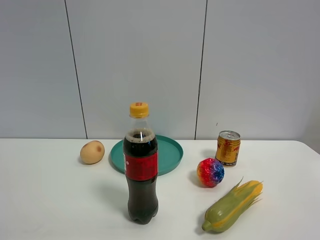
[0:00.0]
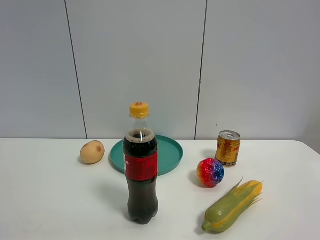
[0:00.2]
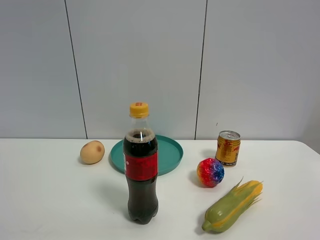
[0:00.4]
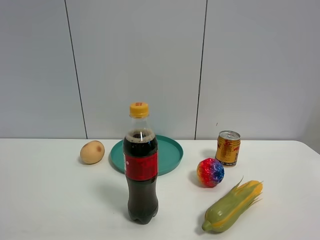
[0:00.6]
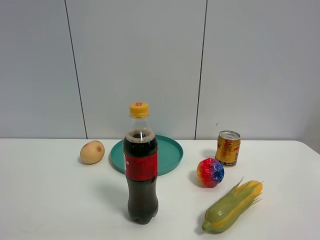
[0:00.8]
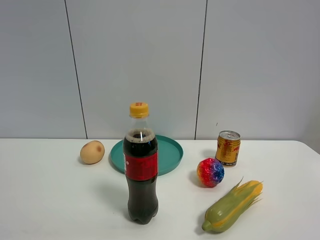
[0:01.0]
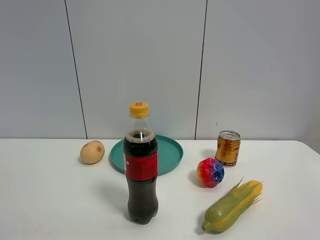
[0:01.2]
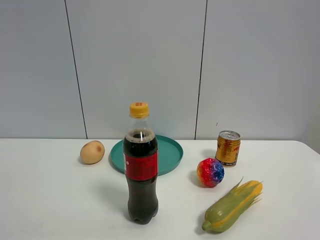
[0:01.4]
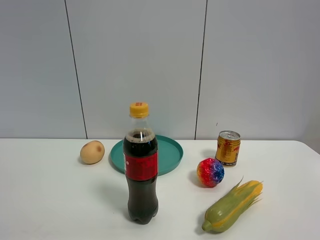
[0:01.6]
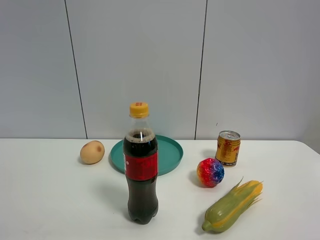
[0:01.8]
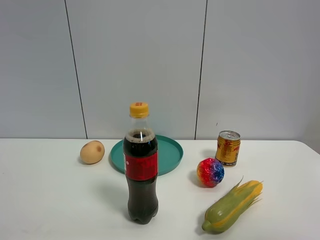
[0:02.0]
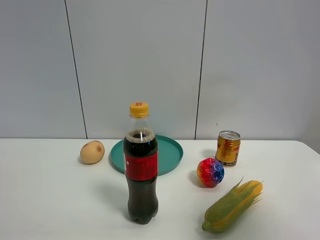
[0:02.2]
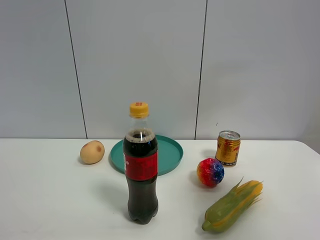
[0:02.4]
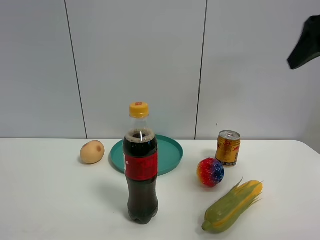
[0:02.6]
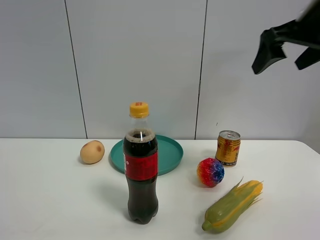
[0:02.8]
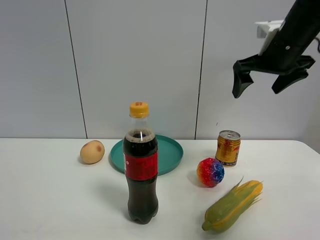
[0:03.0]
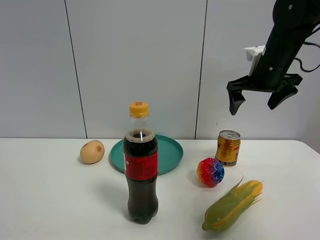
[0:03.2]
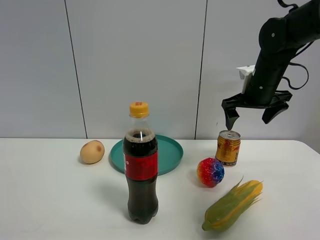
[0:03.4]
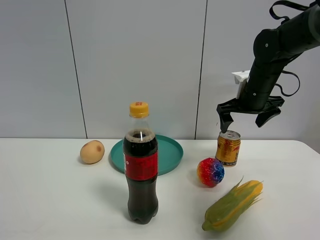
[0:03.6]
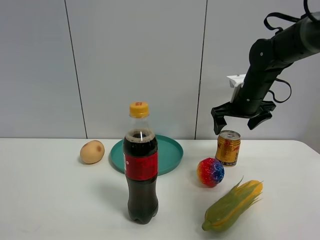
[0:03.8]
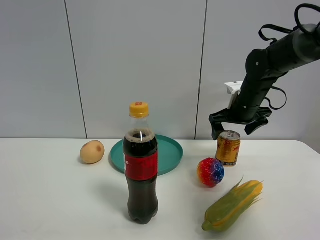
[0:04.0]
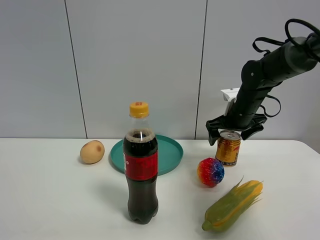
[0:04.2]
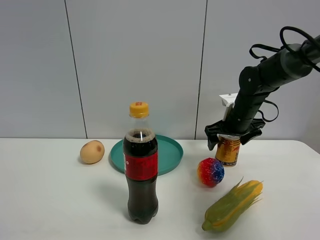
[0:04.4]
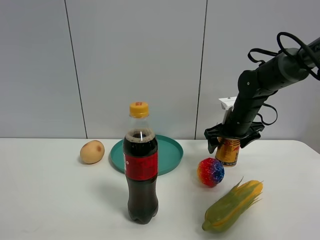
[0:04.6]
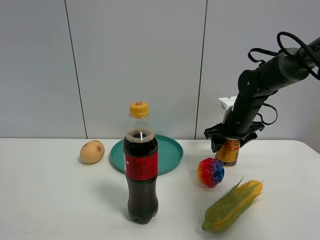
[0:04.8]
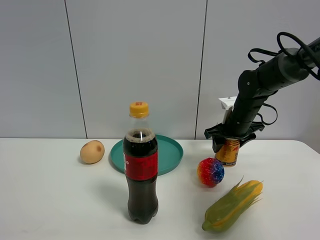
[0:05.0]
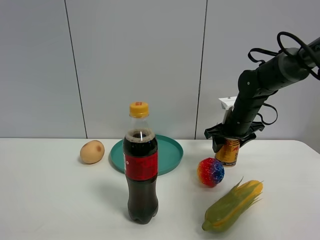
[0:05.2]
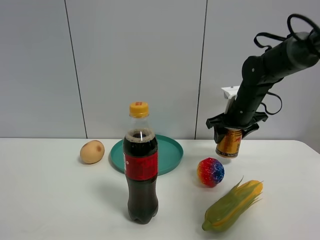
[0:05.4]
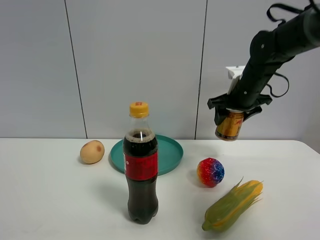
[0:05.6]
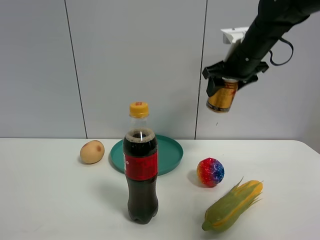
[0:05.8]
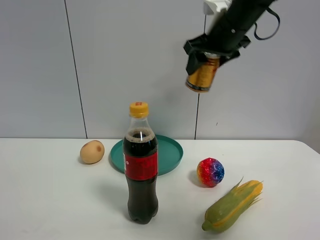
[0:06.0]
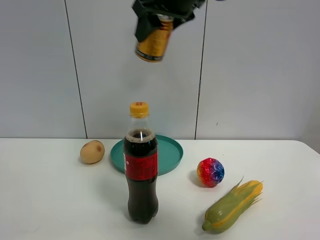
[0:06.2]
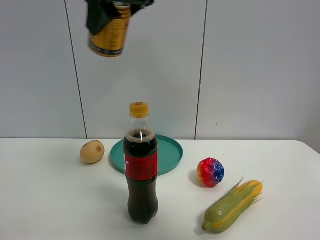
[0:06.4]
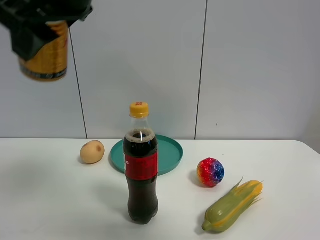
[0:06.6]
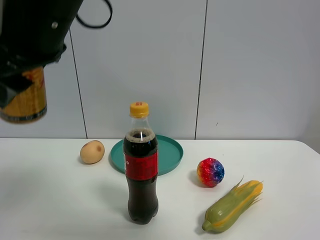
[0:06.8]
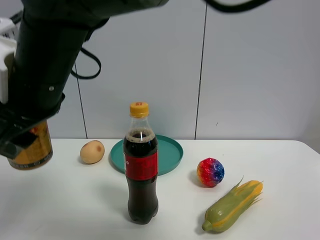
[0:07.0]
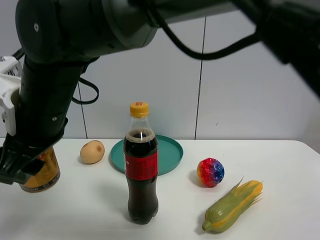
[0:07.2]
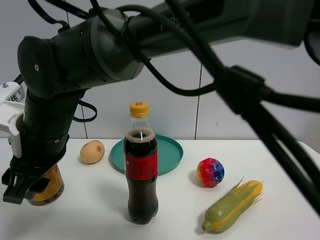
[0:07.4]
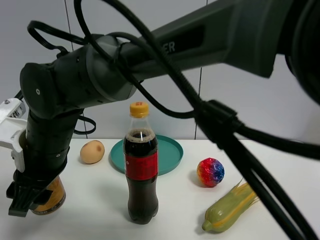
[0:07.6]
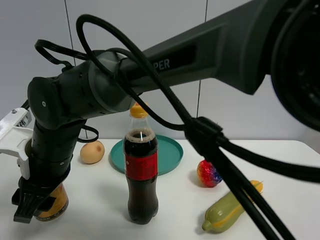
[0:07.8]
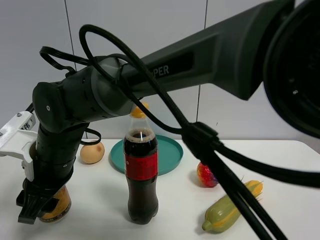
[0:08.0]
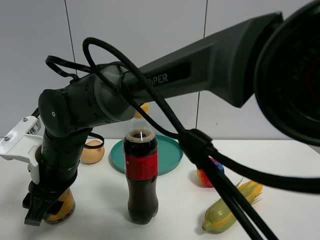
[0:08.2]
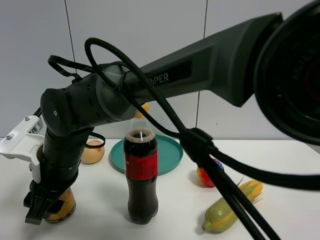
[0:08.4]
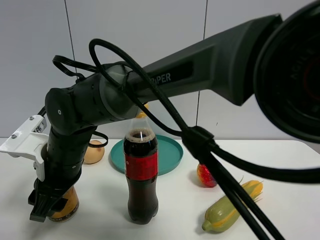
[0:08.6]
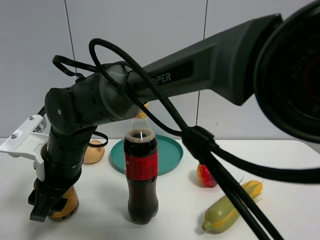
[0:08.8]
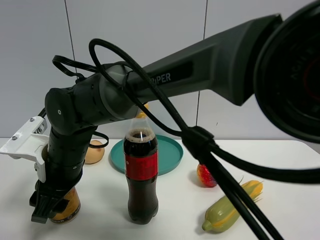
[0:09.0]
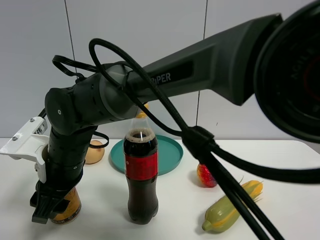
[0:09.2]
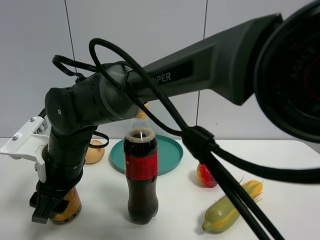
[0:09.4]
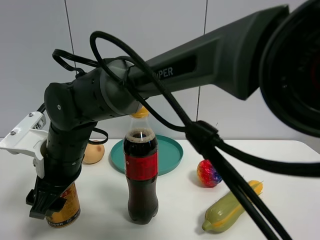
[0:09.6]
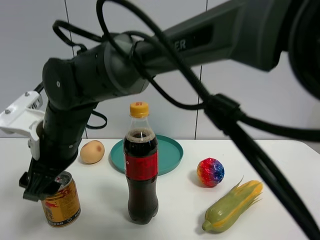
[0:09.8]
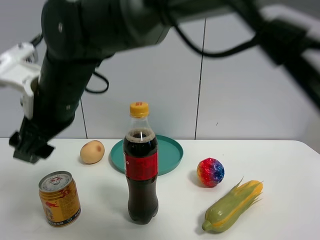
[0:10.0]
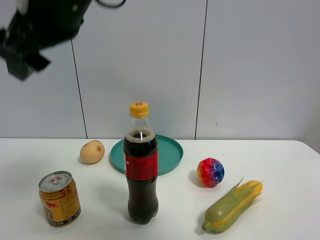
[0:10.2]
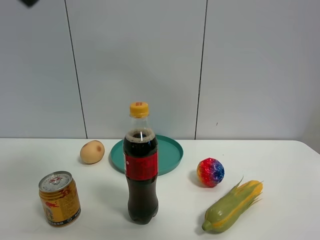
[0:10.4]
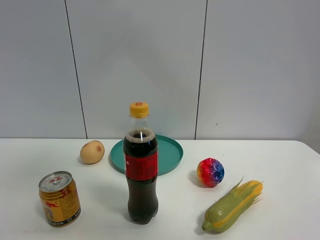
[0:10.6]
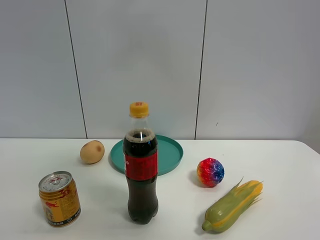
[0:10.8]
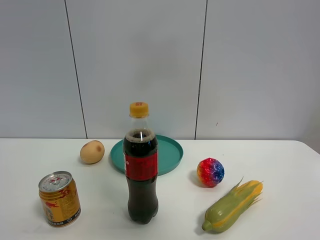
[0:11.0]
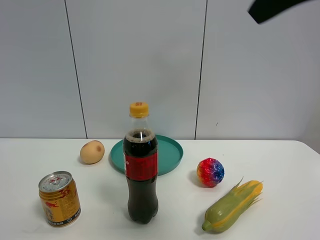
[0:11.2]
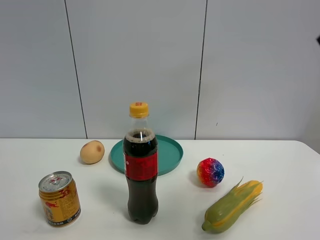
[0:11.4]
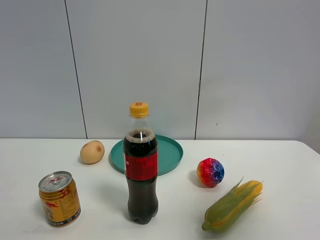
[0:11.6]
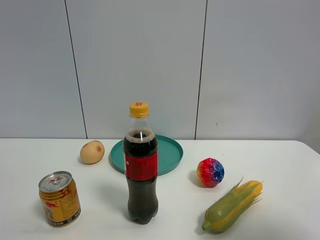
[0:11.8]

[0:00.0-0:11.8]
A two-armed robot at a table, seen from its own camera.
Task of the whole recording: the gripper move the object.
Step, 0:00.0 to 0:04.8: Grasp the red bull with the right gripper.
Step, 0:05.0 to 0:09.6: Place the red bull on the table with the right gripper.
0:00.0 to 0:01.4: Both grippers stay about where they are.
0:01.4 to 0:03.0: The right gripper moves forward, roughly 40 cm.
0:03.0 to 0:04.4: The right gripper heads downward and forward, covering roughly 20 cm.
0:04.4 to 0:06.0: The right gripper heads upward, covering roughly 20 cm, and closes.
0:06.0 to 0:07.4: The right gripper shifts approximately 35 cm to the left, downward and backward.
0:07.4 to 0:08.8: The right gripper shifts approximately 5 cm downward.
0:08.8 to 0:10.4: The right gripper moves upward, about 30 cm, and opens.
0:10.4 to 0:11.8: The right gripper shifts approximately 40 cm to the right and backward.

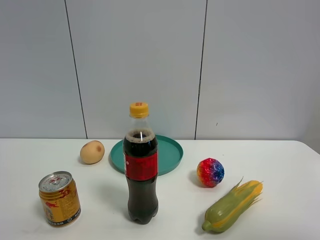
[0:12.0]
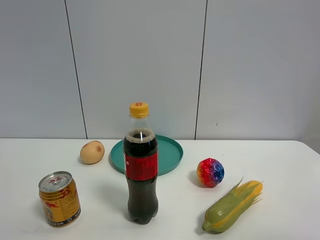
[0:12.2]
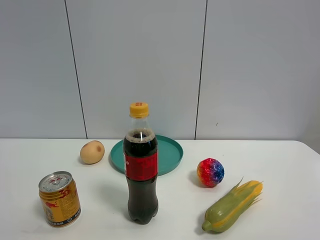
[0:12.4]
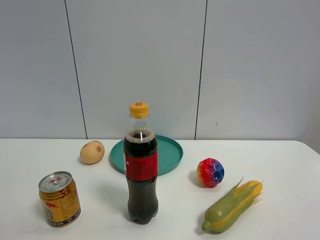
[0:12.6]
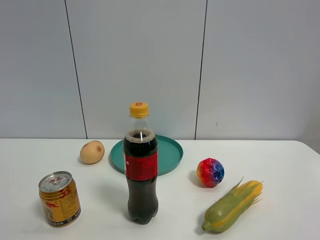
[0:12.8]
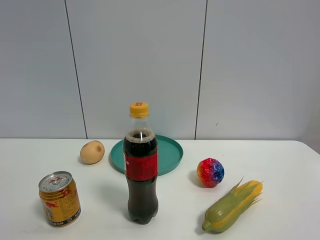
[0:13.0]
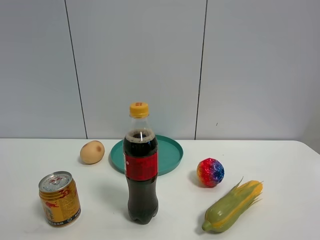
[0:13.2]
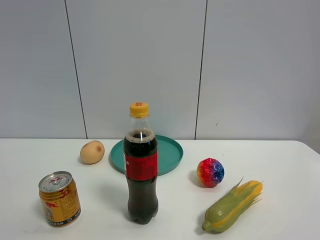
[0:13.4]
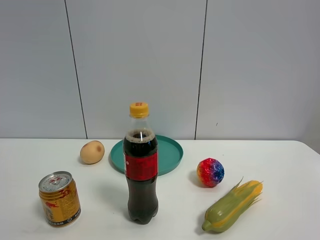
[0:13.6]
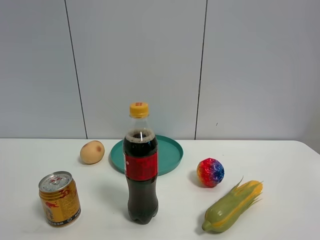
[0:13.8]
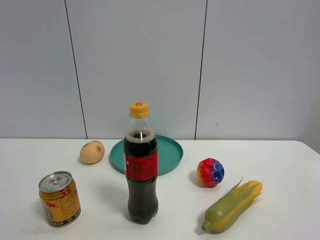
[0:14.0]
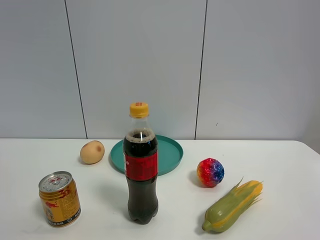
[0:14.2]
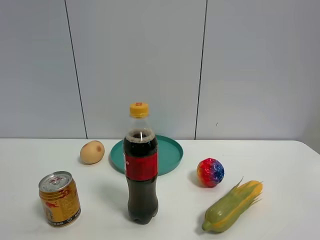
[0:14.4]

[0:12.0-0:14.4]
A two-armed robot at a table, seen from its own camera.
Task of the whole recording: the gripper move the object.
0:12.0 to 0:13.2: The right gripper heads backward, covering approximately 5 cm.
0:13.2 to 0:14.4: Both grippers stay put.

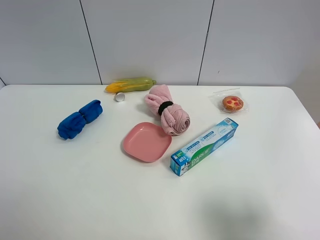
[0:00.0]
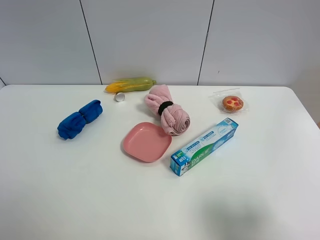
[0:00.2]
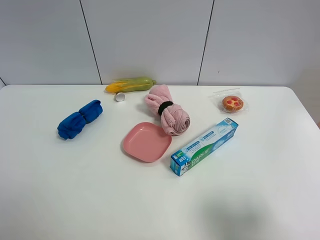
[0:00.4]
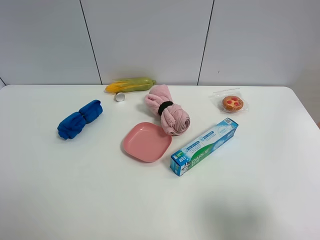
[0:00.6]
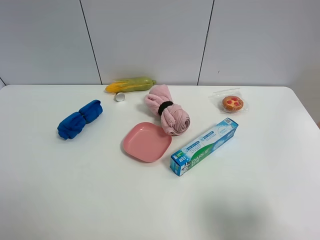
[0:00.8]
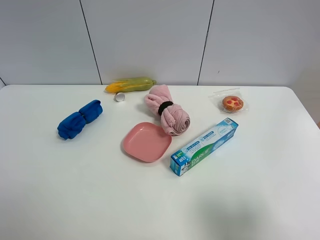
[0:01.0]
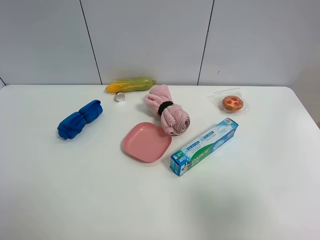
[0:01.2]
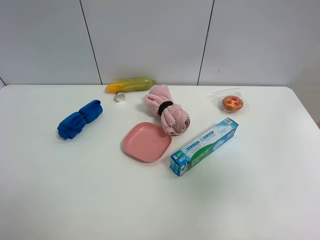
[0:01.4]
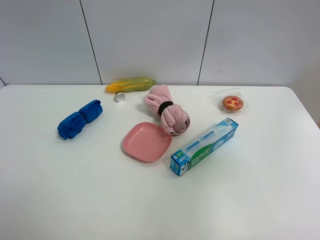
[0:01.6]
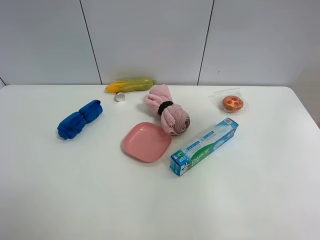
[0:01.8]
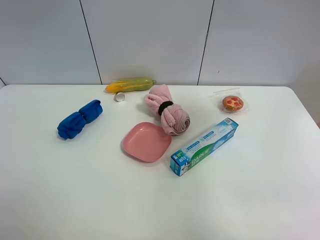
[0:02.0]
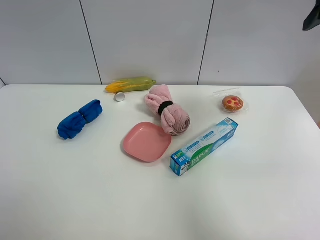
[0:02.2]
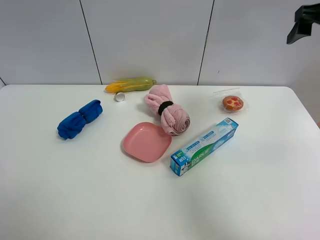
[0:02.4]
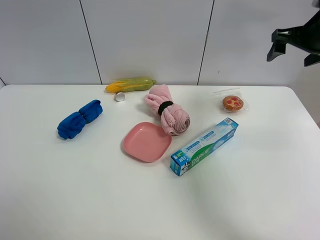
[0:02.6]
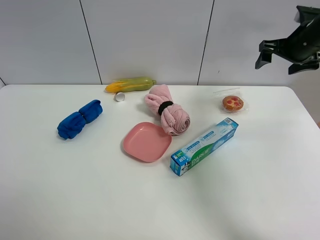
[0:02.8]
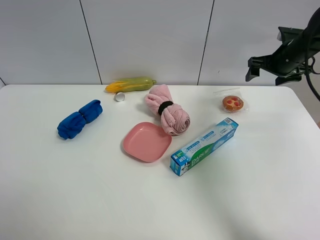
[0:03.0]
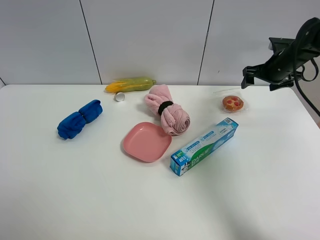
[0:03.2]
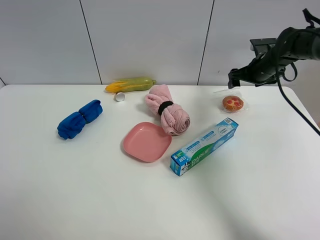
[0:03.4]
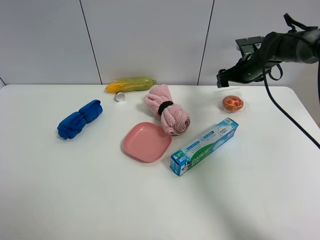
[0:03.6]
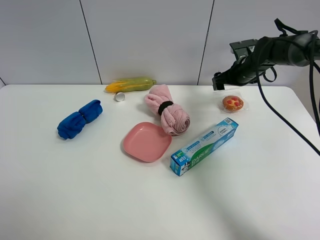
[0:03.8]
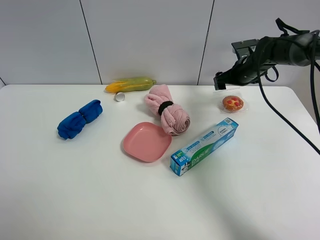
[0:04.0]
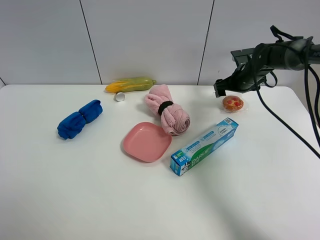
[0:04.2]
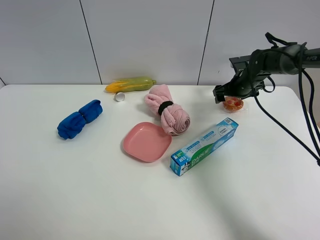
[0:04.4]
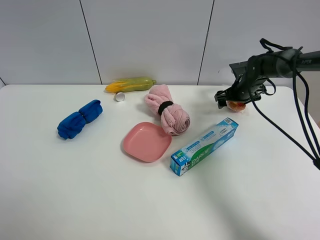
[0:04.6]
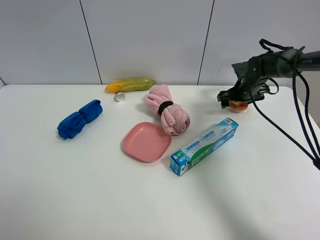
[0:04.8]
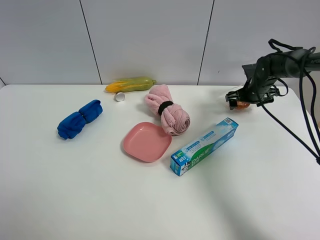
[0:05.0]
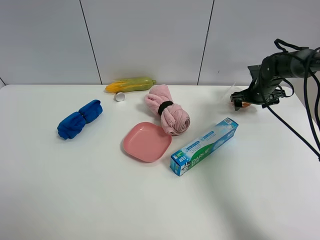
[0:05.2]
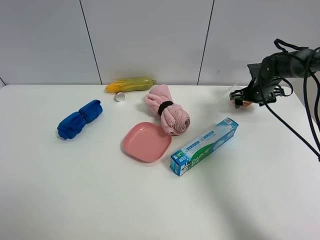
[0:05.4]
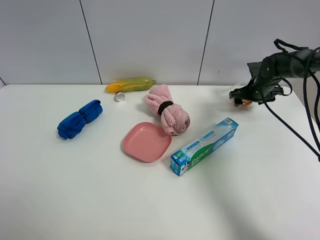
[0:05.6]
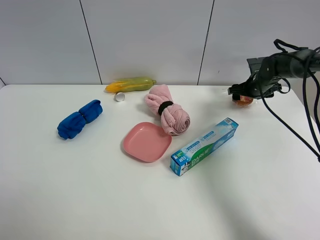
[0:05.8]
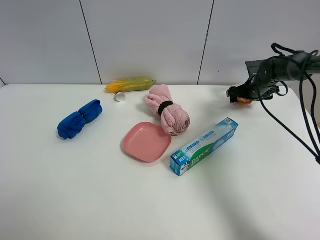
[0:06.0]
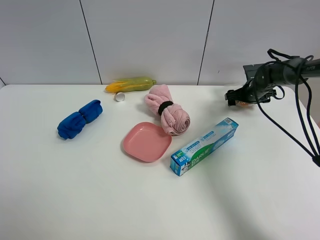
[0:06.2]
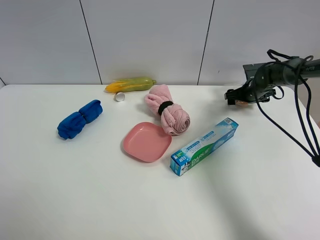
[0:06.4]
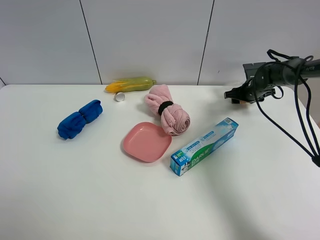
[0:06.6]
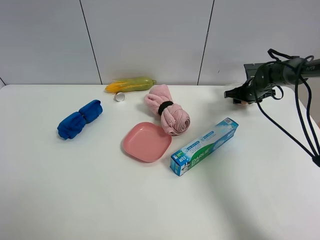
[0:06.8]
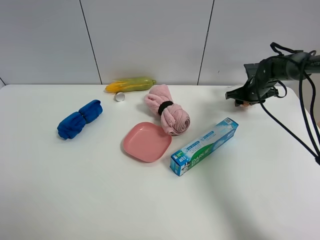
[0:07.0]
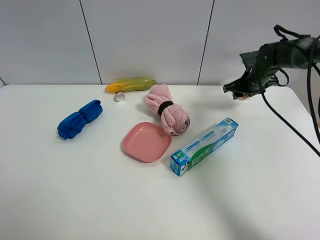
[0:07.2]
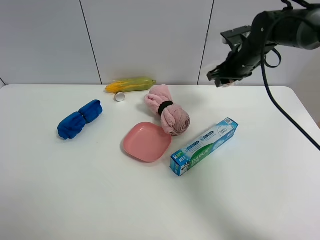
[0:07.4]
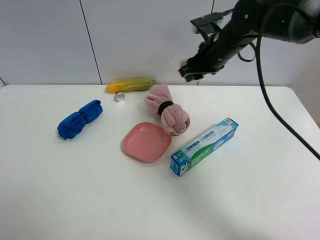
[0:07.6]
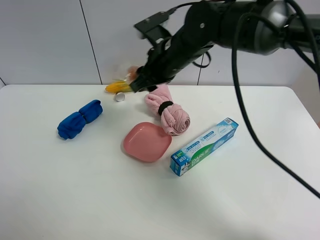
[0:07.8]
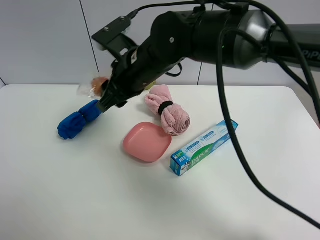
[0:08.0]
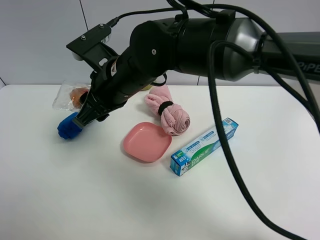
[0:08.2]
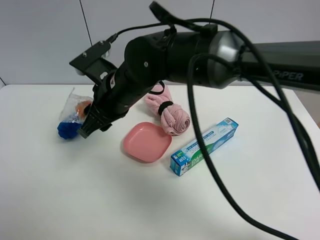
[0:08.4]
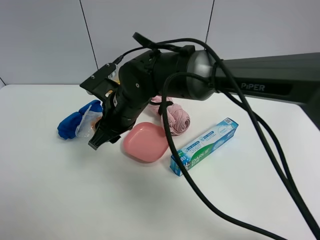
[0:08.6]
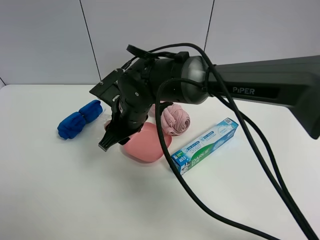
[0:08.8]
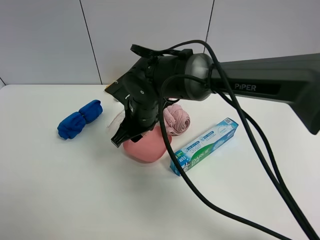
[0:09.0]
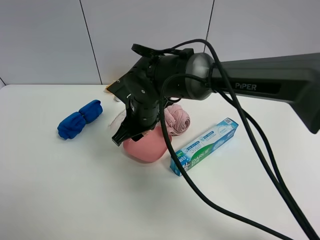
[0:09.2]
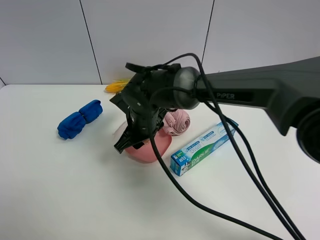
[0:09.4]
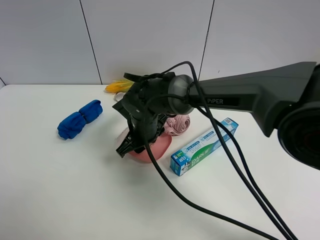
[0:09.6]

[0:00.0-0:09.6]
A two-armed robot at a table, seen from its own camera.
Task of the whole recording: the gripper move the object.
Step, 0:00.0 to 0:06.6: Grasp the egg tart with the right gripper.
0:00.0 to 0:01.6: The right gripper goes roughly 20 cm upward and forward.
0:01.6 to 0:03.2: The right gripper heads forward and downward, covering some 40 cm.
0:03.2 to 0:04.8: The right gripper shifts about 10 cm downward and to the left.
0:04.8 to 0:06.4: The grippers make only small movements.
0:06.4 to 0:08.0: The right gripper shifts some 40 cm to the left, backward and upward, and closes.
0:08.0 to 0:09.6: The right gripper travels downward by about 15 cm.
